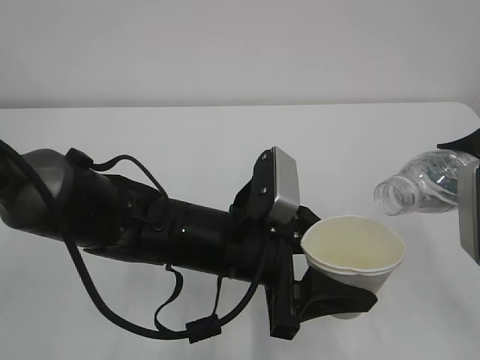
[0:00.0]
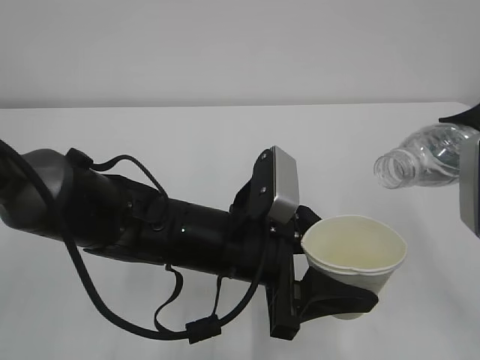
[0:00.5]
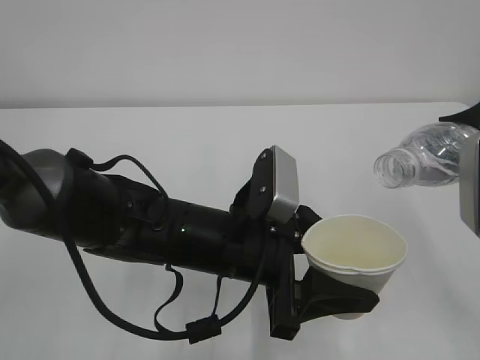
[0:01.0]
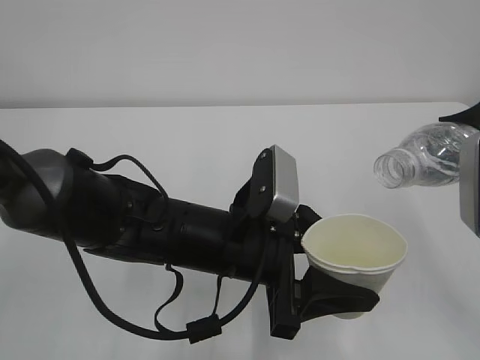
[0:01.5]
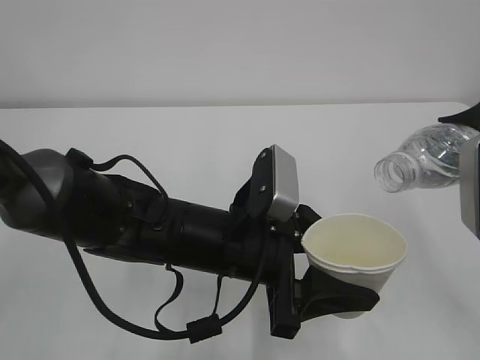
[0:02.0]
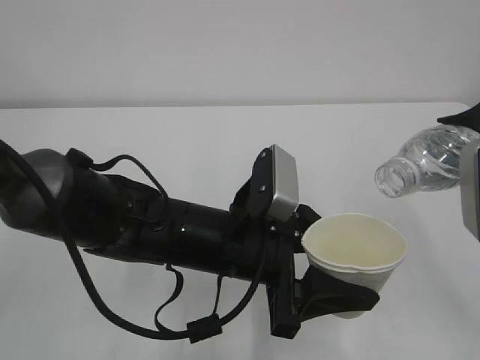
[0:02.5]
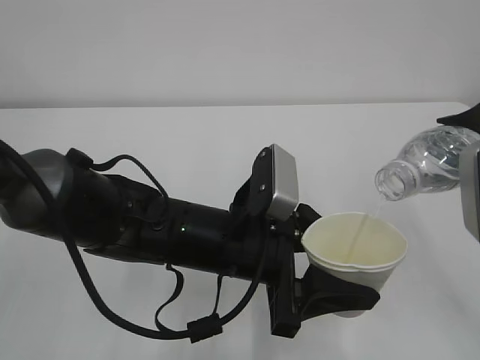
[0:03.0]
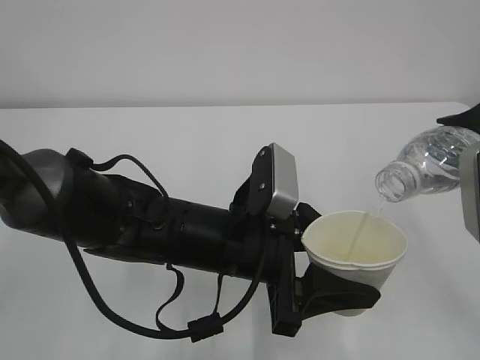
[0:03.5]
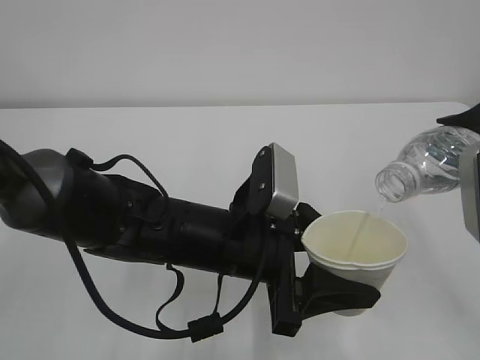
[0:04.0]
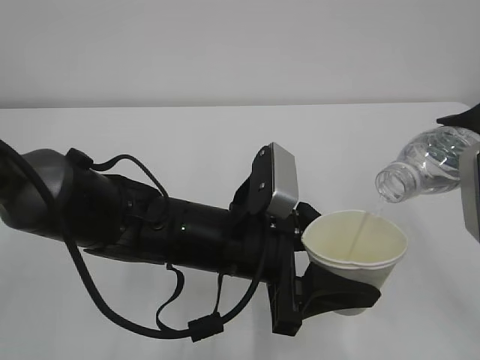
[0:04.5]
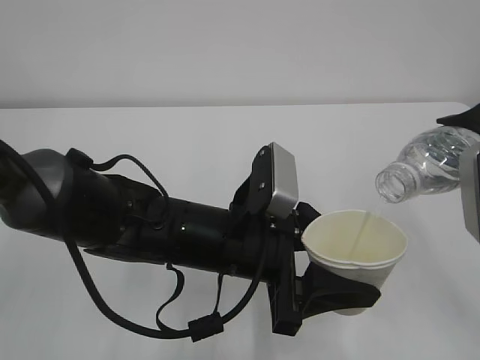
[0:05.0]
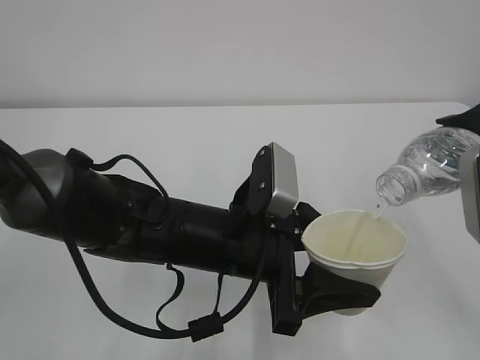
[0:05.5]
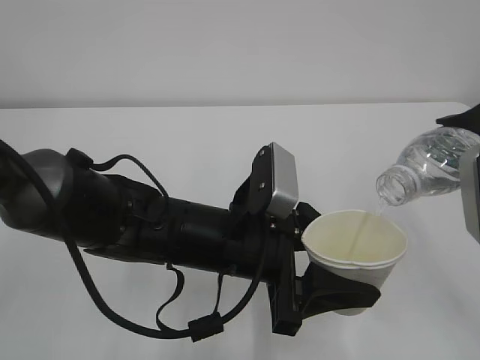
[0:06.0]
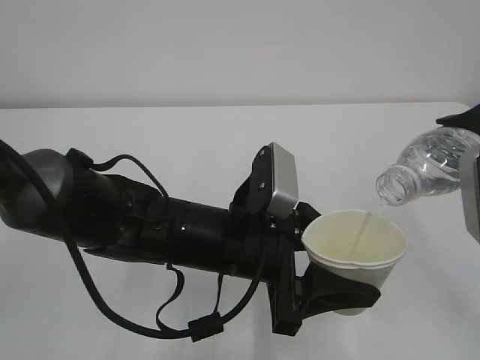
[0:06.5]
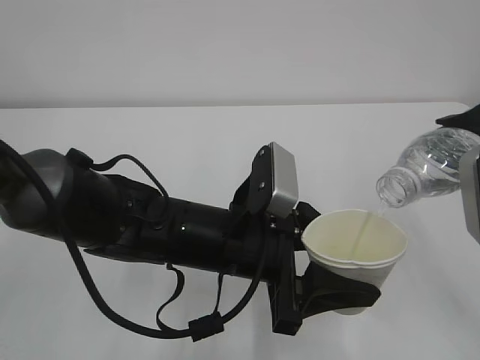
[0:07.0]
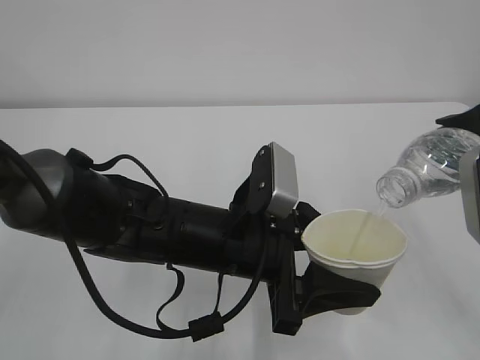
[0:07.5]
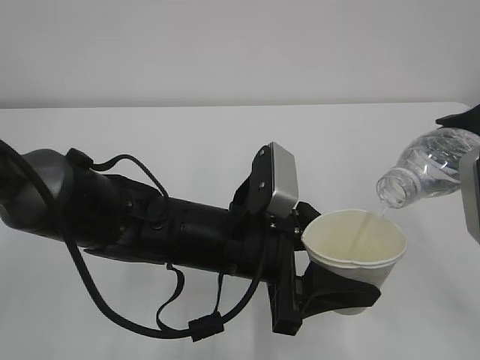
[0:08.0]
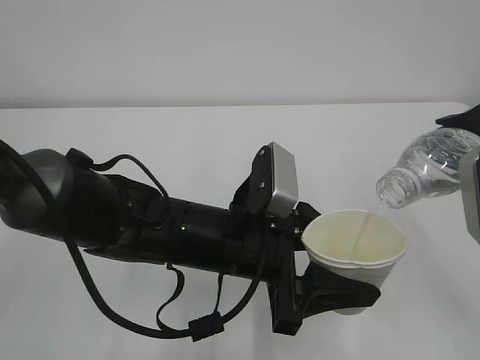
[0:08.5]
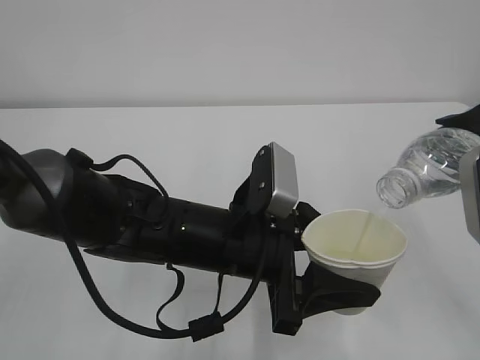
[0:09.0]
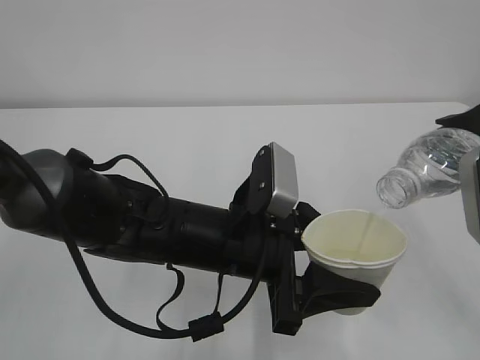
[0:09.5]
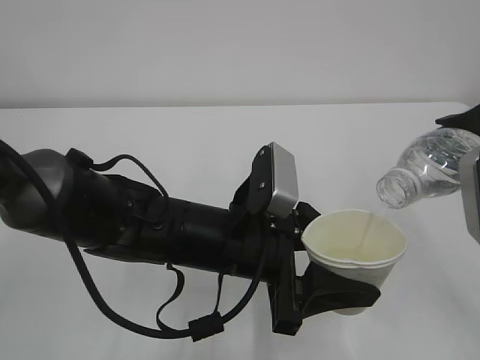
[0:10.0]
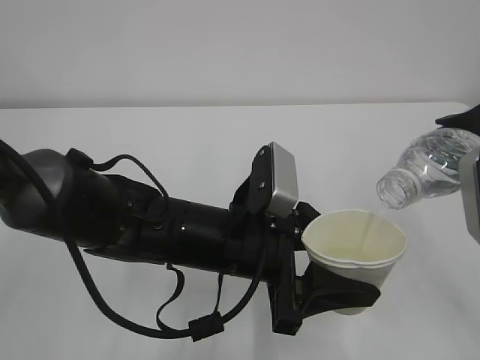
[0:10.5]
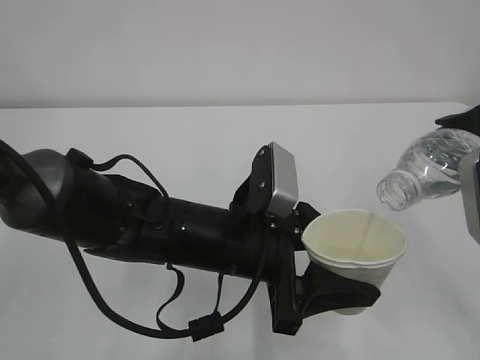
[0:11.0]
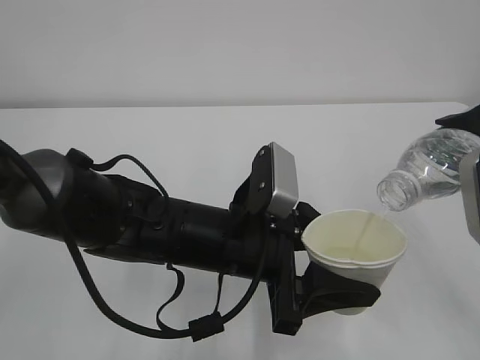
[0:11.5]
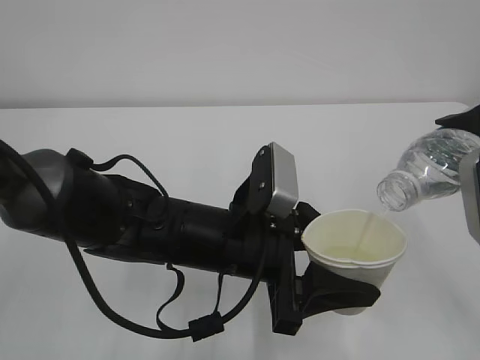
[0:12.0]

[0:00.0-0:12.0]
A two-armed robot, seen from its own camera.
0:00.0 to 0:02.0: There are only small adjustments of the grippers.
0:02.0 to 0:04.0: Both grippers stay about where they are.
0:04.0 to 0:12.0: The two grippers keep their place.

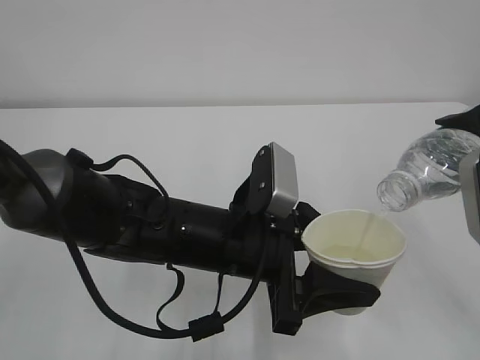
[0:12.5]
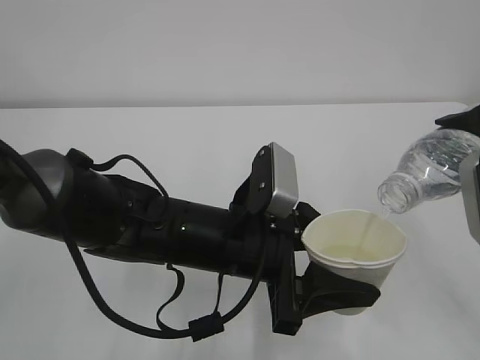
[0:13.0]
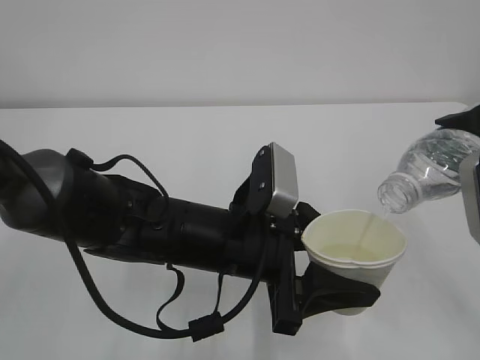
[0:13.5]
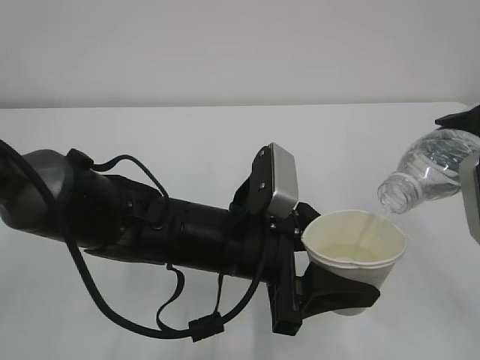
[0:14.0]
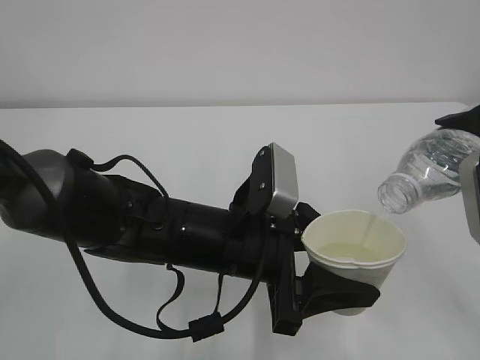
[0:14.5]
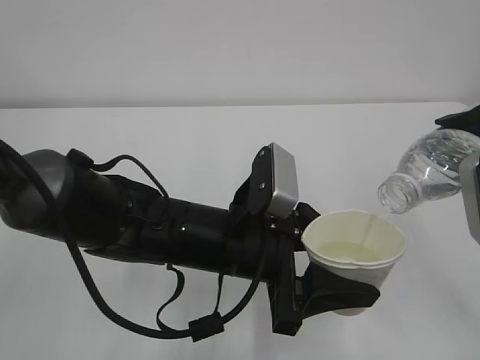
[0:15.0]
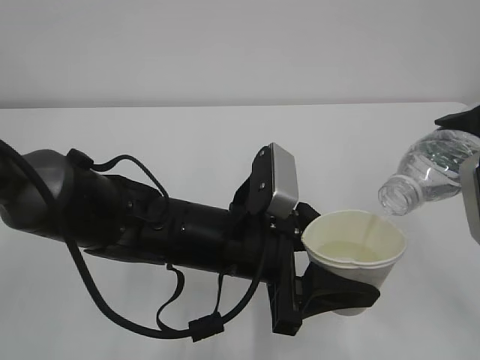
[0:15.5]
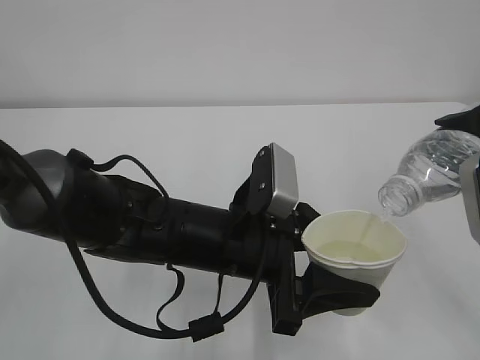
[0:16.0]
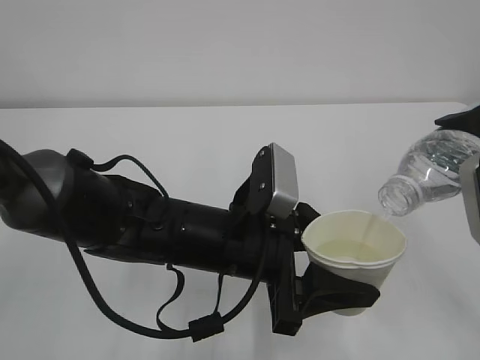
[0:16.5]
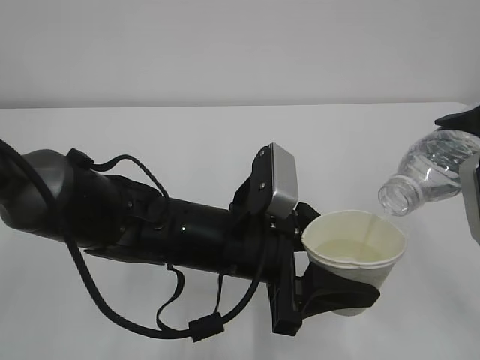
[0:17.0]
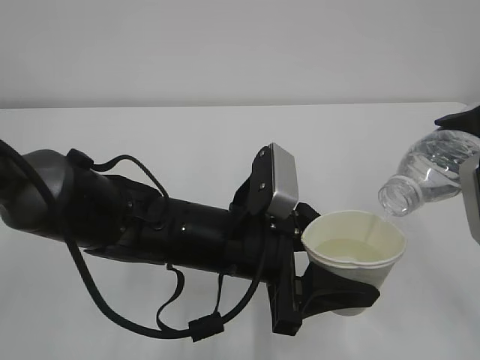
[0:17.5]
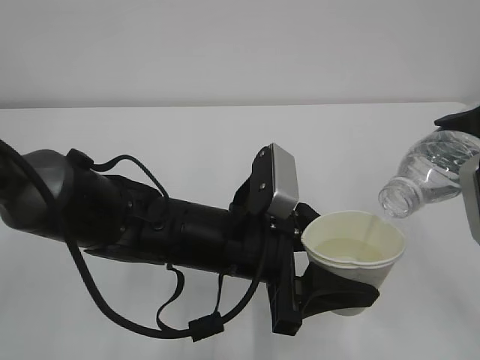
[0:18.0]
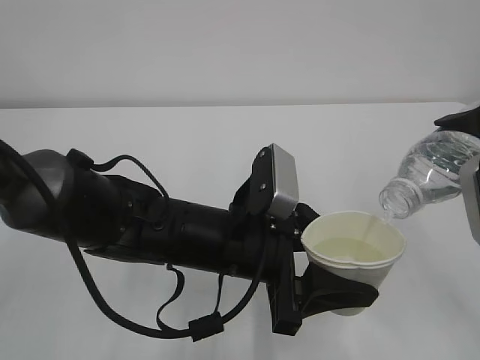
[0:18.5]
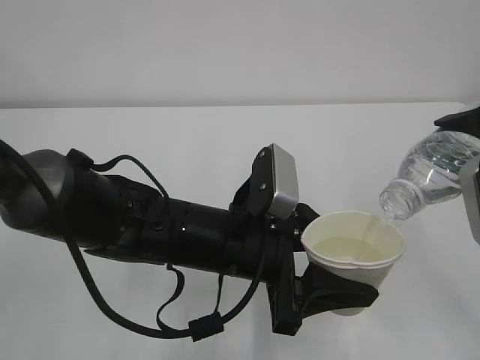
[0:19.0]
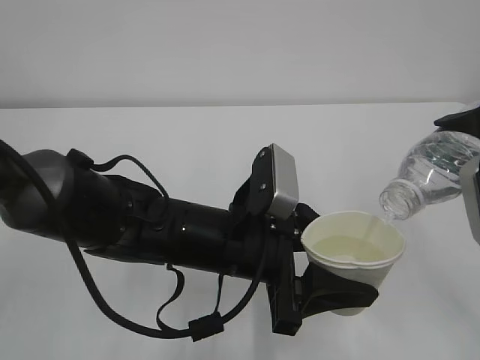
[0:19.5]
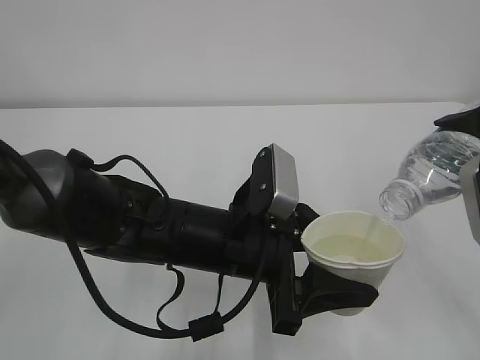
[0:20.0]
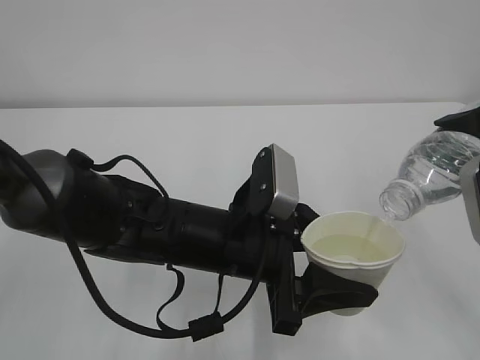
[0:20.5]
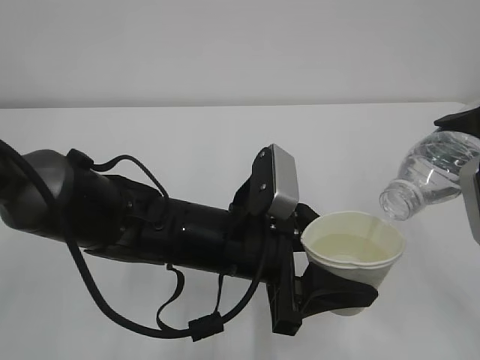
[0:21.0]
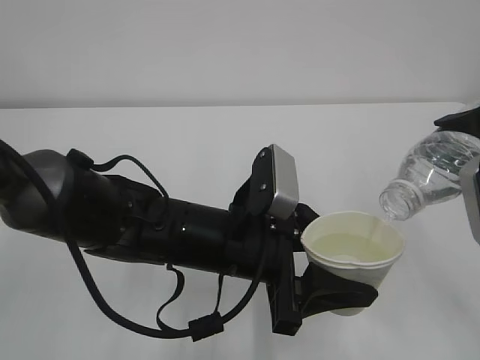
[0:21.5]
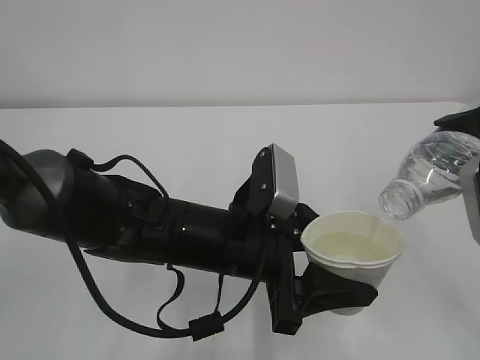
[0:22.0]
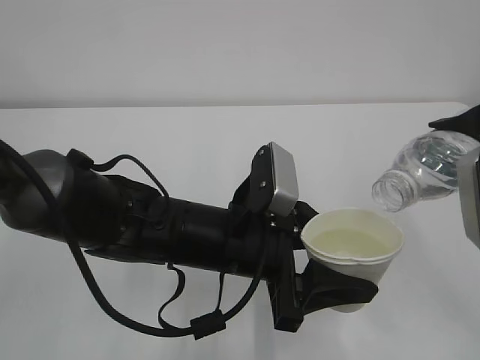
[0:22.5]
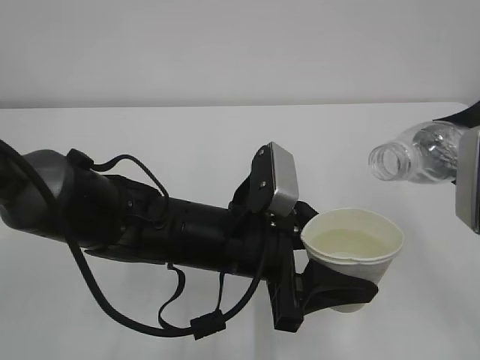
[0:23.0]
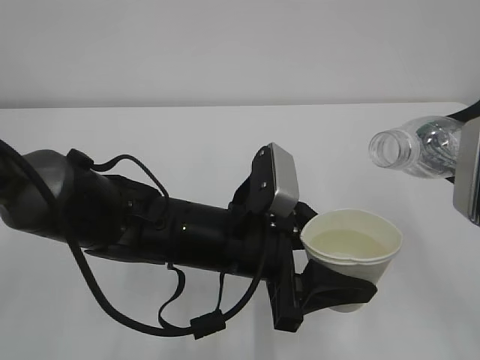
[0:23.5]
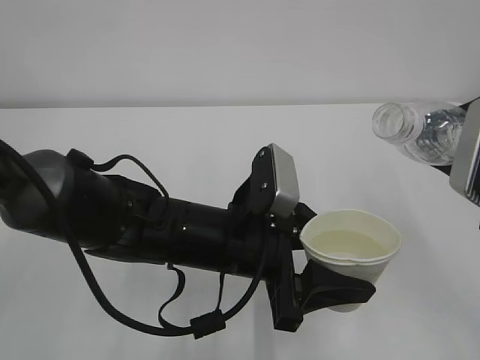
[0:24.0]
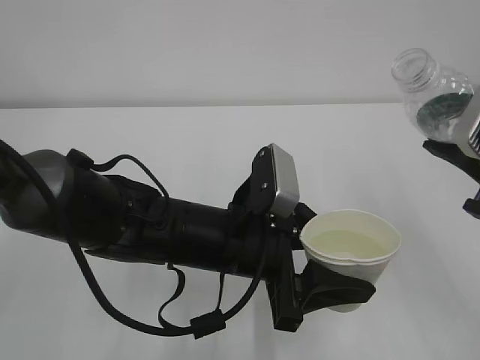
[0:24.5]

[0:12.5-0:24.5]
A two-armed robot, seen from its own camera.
0:12.5 to 0:20.5: Both grippers stay about where they are.
0:20.5 to 0:22.5: The grippers stay close to where they were, moving slightly.

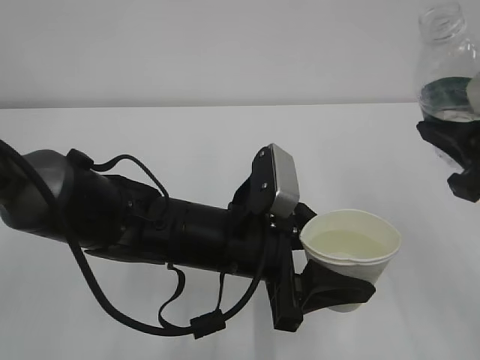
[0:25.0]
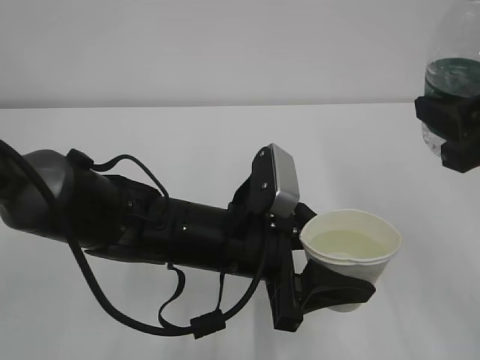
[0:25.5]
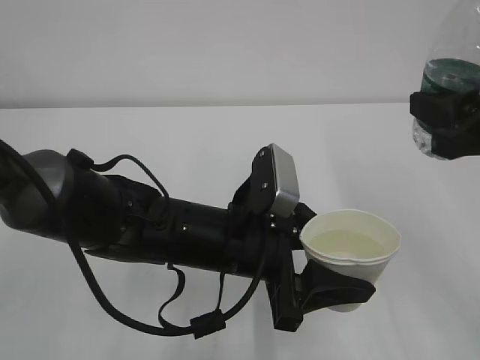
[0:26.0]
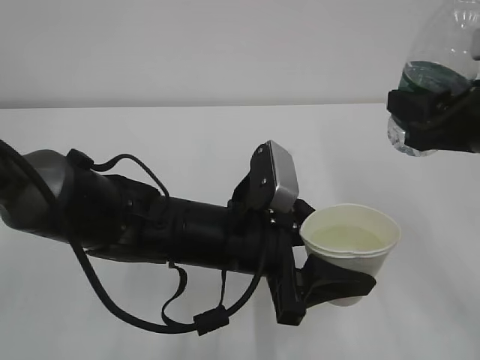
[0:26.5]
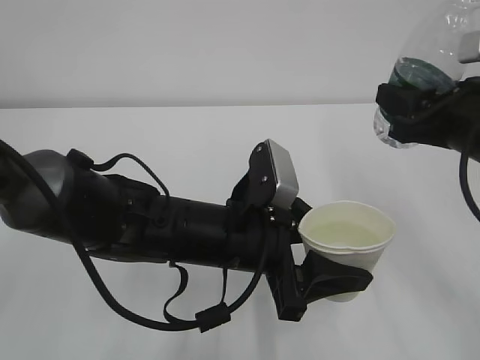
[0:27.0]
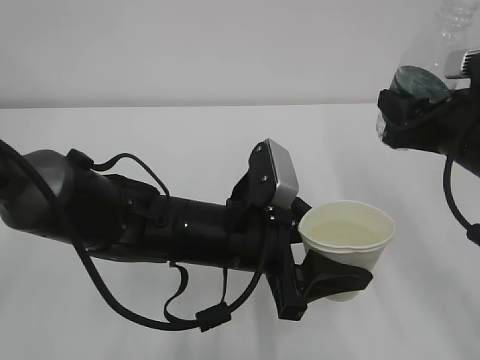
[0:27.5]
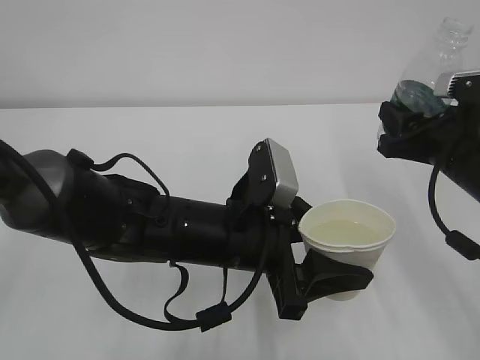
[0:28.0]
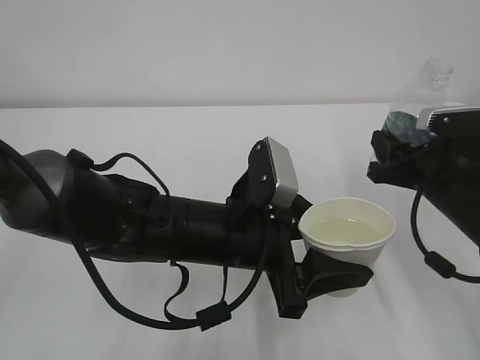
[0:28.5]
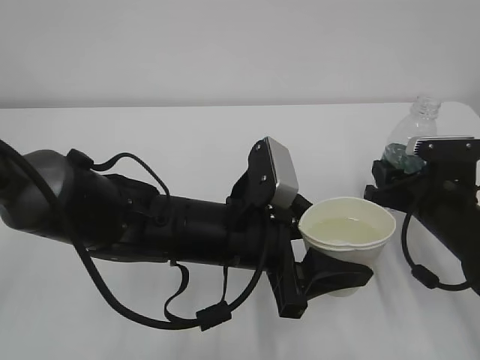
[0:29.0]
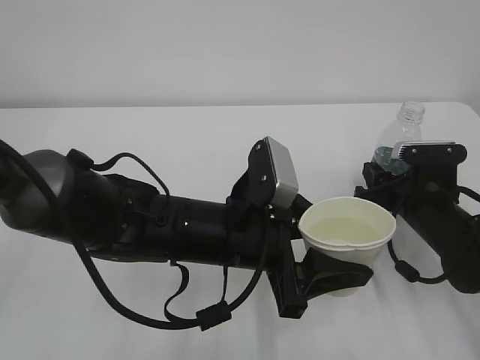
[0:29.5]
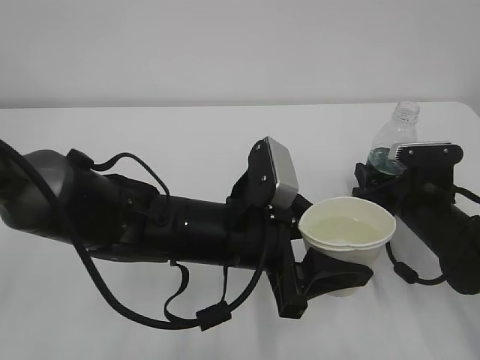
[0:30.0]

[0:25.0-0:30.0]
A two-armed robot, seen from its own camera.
0:25.0 to 0:27.5: The right gripper travels forward and downward by about 10 cm.
0:27.5 to 0:30.0: The right gripper moves downward, approximately 15 cm, and opens its fingers.
